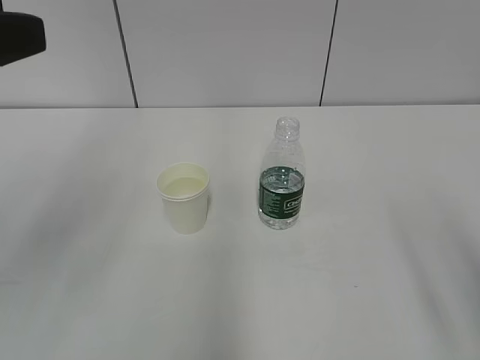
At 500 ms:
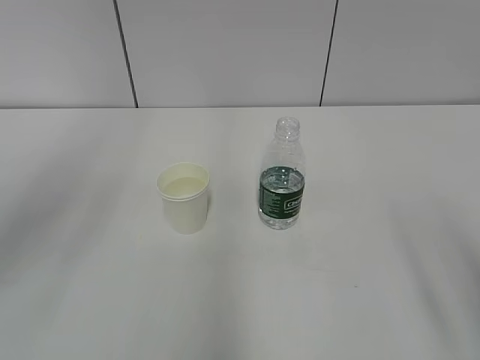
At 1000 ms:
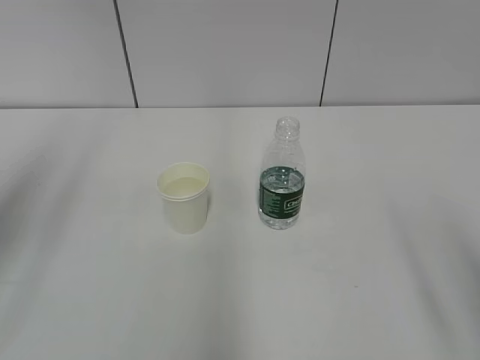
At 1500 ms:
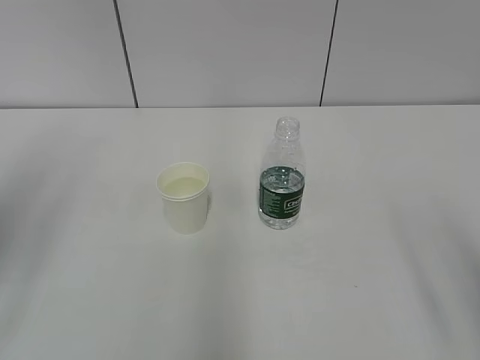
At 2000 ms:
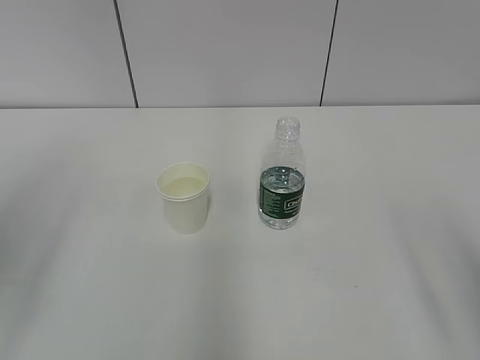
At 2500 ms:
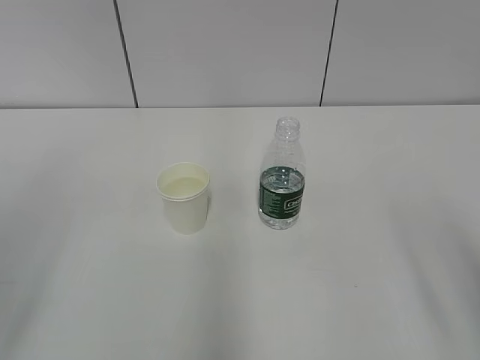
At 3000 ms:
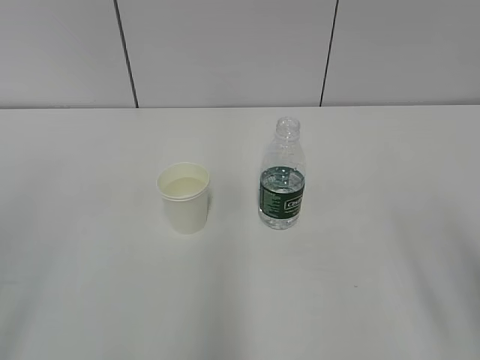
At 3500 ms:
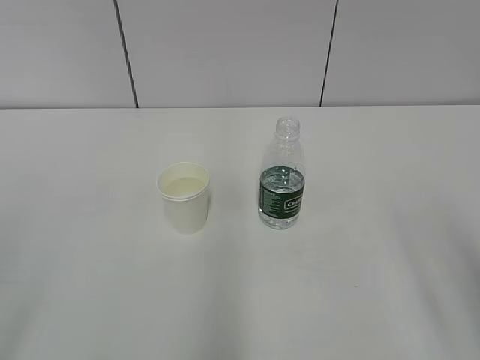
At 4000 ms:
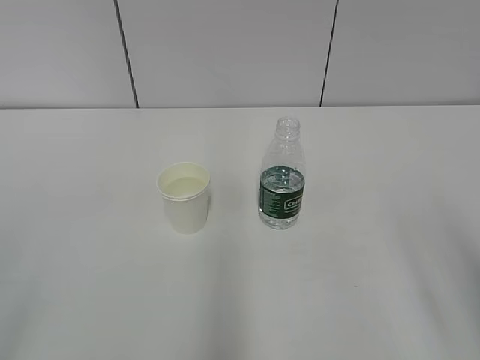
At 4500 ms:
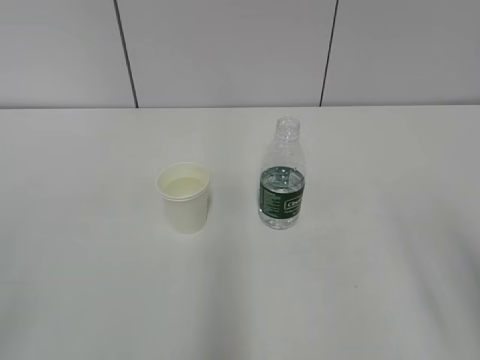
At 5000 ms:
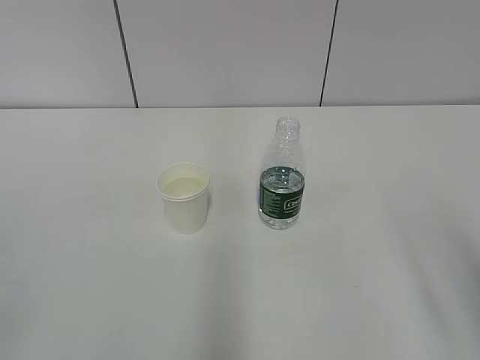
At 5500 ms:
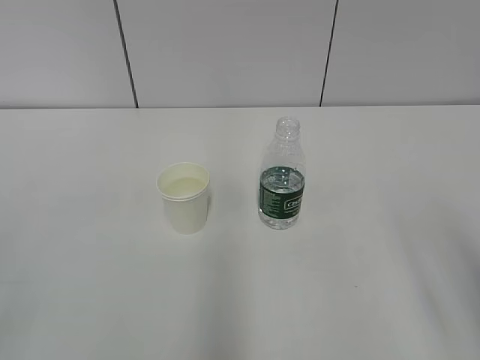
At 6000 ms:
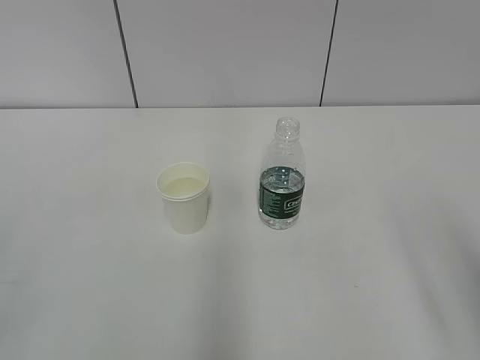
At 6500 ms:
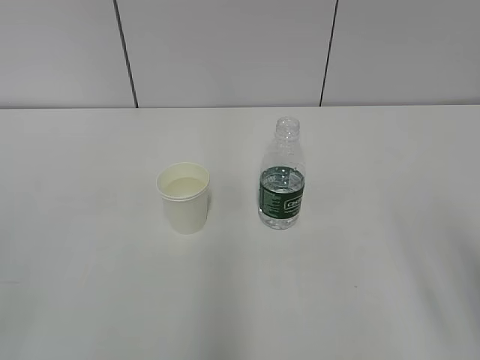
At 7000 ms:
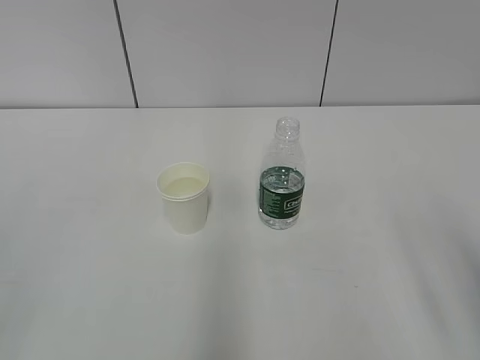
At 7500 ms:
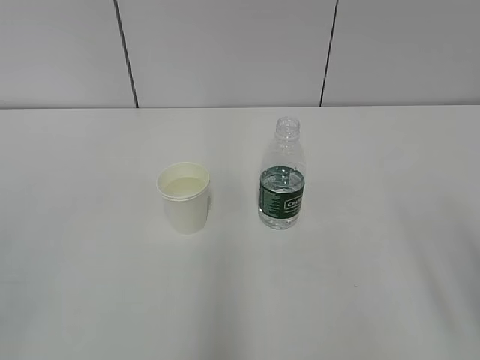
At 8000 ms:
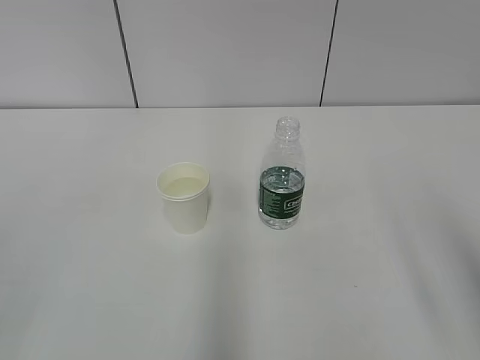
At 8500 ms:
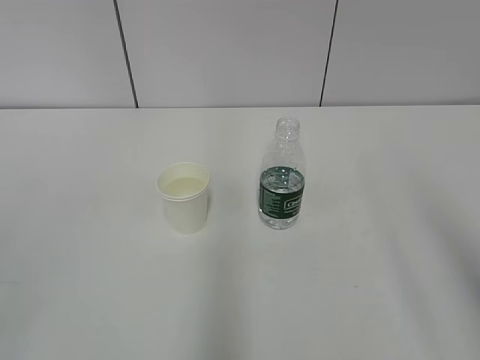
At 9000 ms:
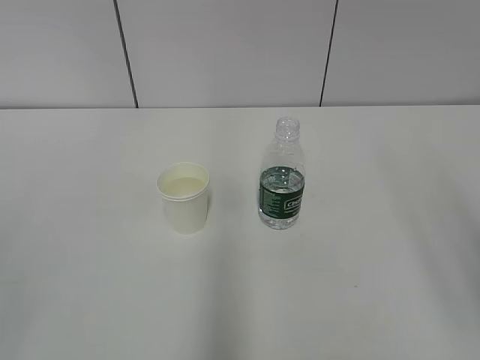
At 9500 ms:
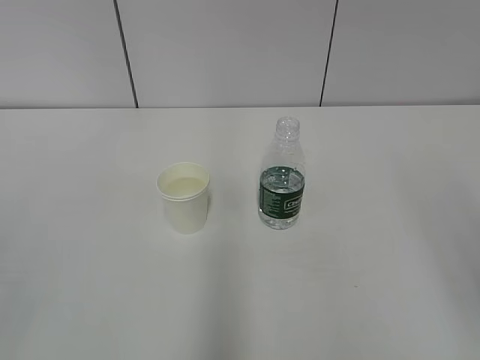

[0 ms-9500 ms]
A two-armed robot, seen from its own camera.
0 ms to 2000 ms: The left gripper shifts by about 5 cm.
5500 ms to 7500 ms: Both grippers stay about where they are.

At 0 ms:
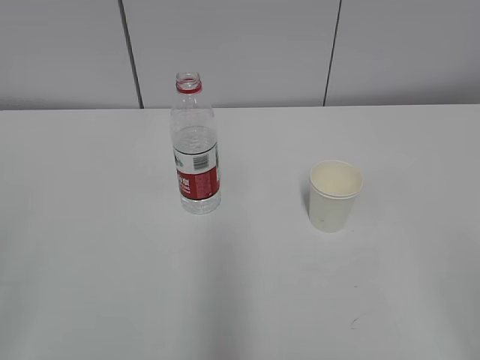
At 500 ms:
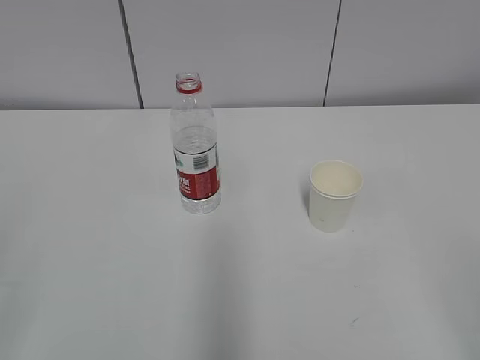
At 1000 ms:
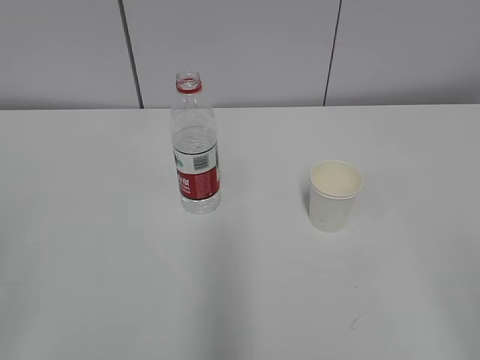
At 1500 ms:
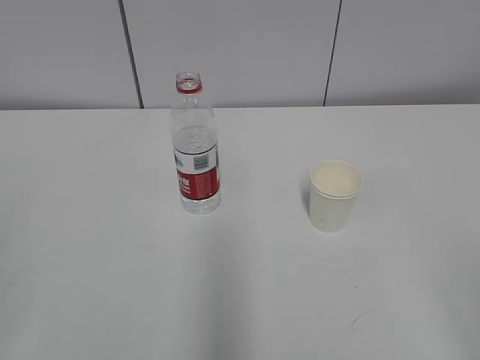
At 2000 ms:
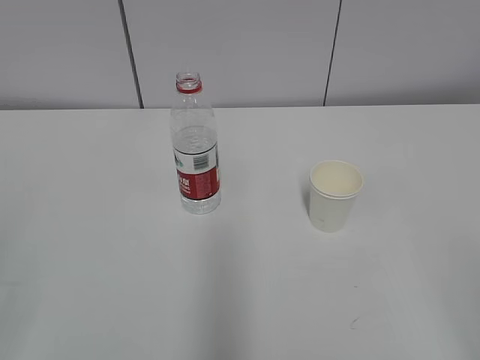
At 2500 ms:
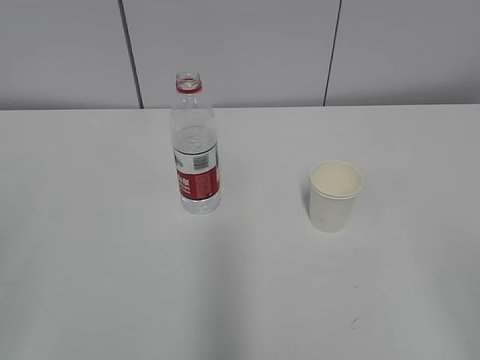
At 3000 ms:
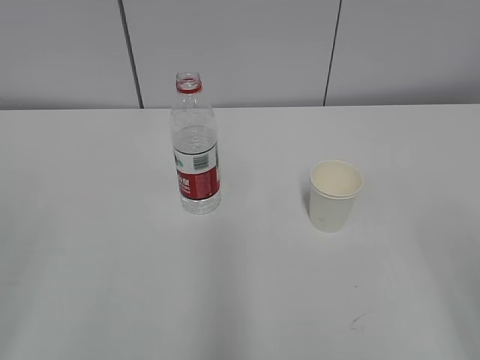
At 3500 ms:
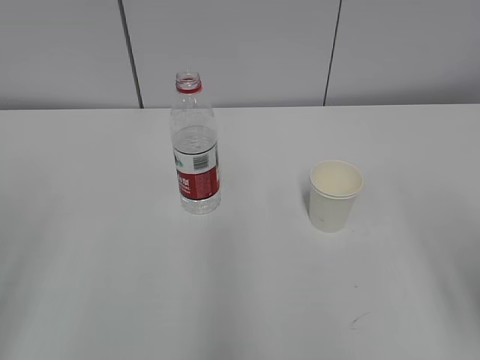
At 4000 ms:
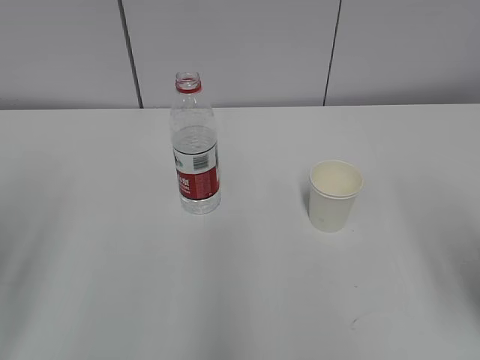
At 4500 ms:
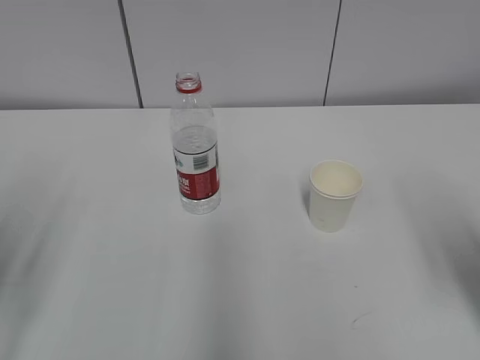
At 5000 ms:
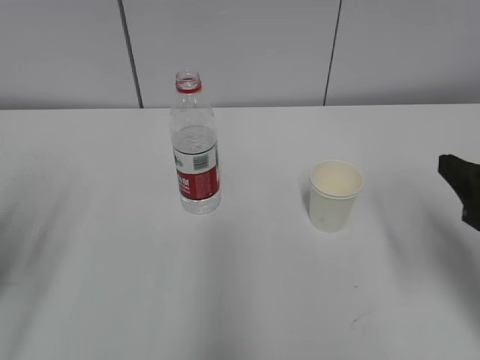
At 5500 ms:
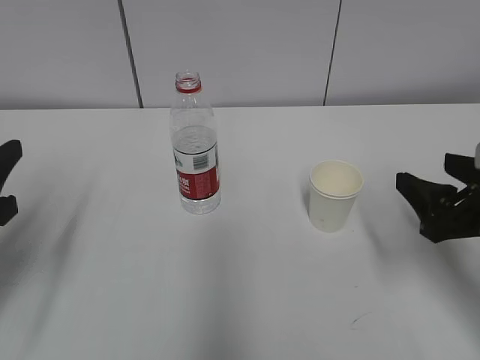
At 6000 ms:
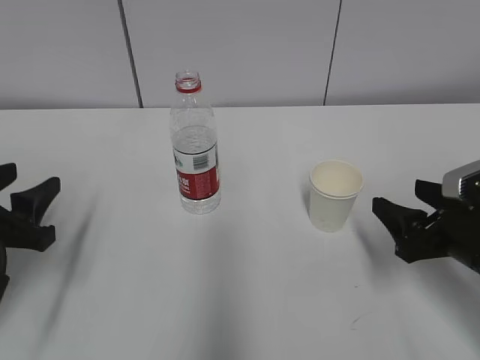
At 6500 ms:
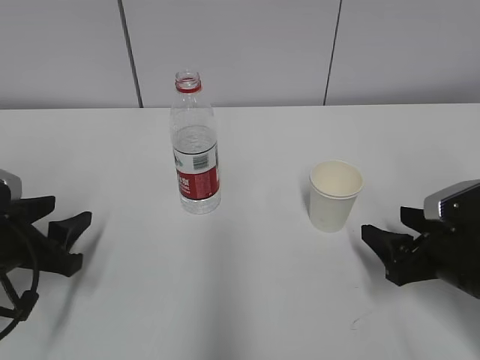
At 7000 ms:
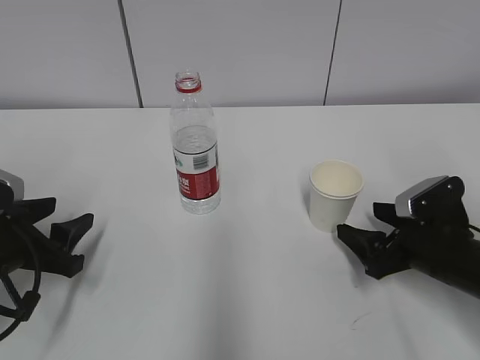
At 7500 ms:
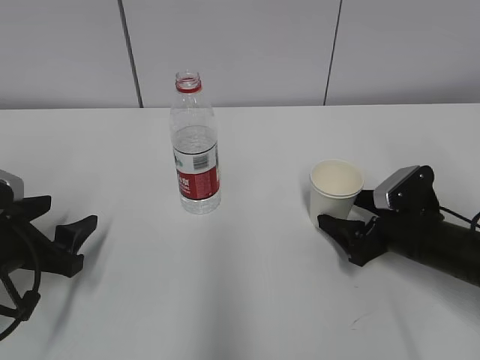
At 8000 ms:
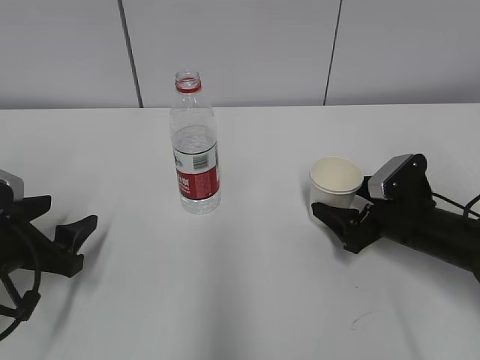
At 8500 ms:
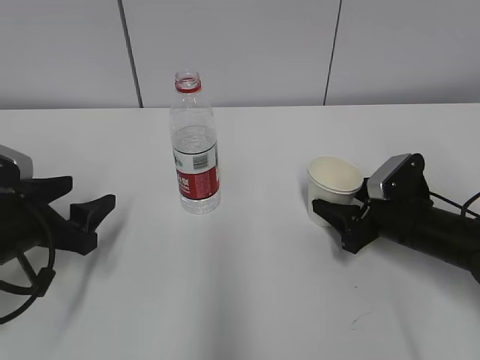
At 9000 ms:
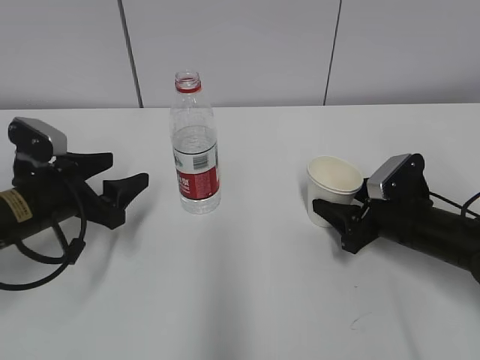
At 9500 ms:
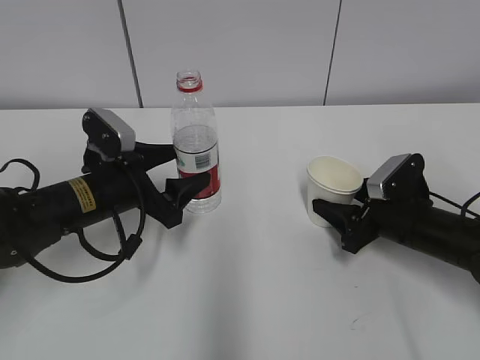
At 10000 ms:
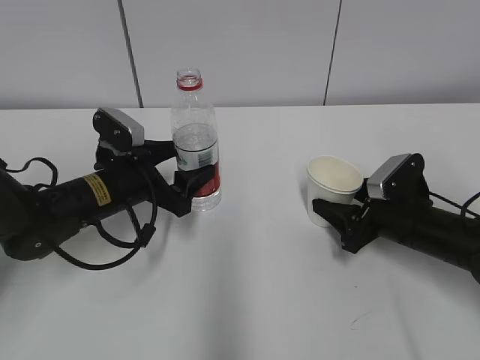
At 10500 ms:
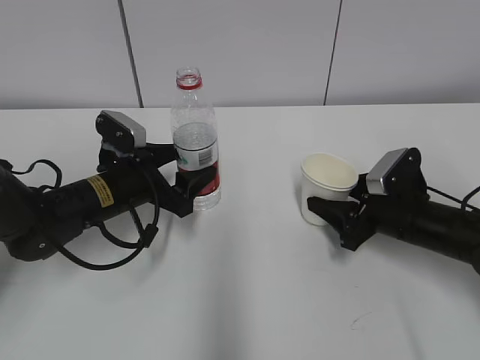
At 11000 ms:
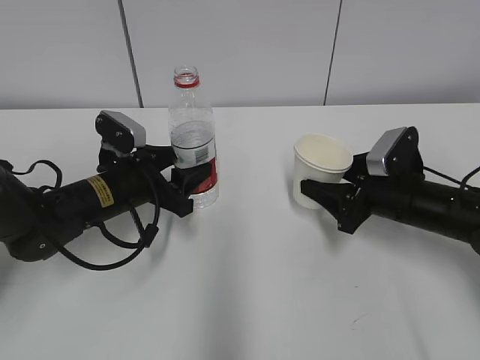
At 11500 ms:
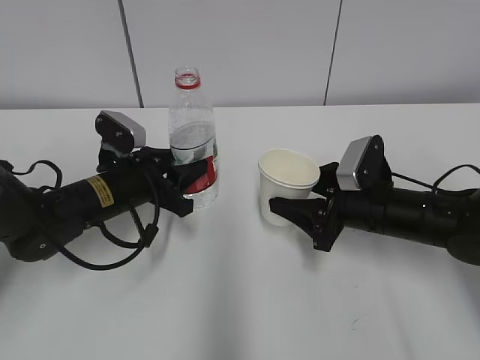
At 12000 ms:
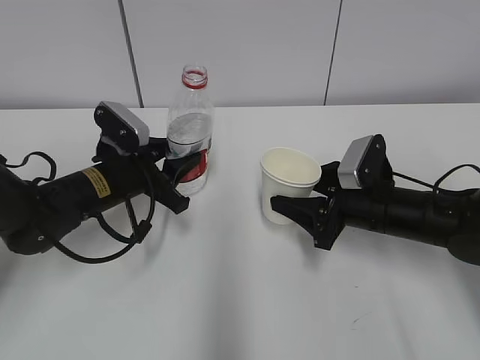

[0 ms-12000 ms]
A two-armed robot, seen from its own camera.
Step, 0 ms to 8500 ms: Grab the paper cup with the right hand.
Step, 9000 ms to 9500 ms: Grab the water bottle with the left hand.
2000 ms to 4000 ms: The right gripper heads forward, covering some 15 cm.
4000 ms to 6000 ms: Both grippers move downward and forward, some 15 cm.
6000 ms to 8000 ms: The right gripper moves forward and downward, some 10 cm, while the left gripper heads downward, covering about 5 cm, and opens up.
8000 ms to 10000 ms: The right gripper closes its fingers, while the left gripper travels forward and to the right by roughly 15 cm.
10000 ms to 12000 ms: The right gripper ends up roughly 5 cm from where it was; the left gripper closes.

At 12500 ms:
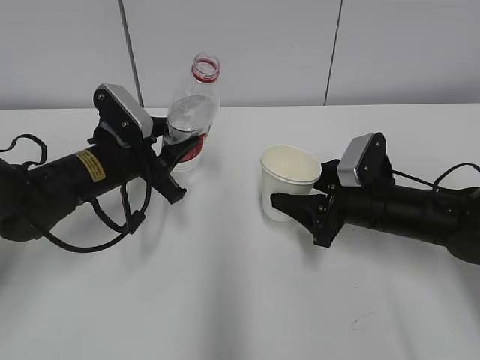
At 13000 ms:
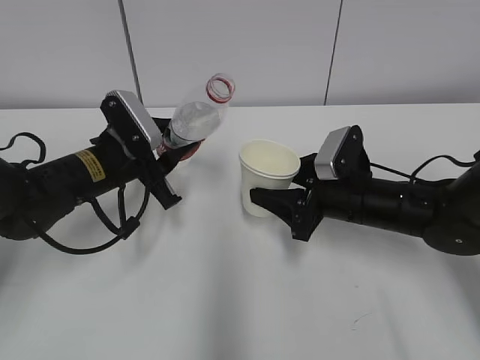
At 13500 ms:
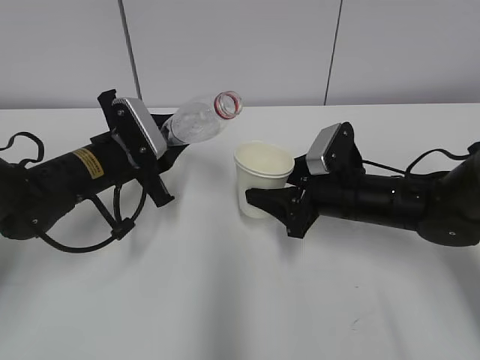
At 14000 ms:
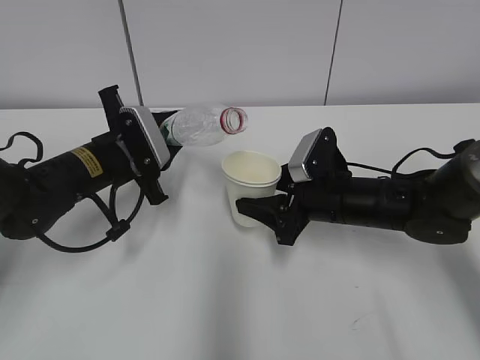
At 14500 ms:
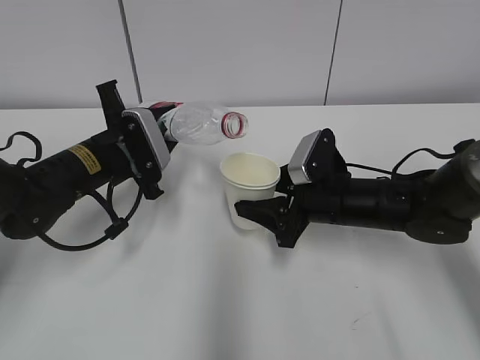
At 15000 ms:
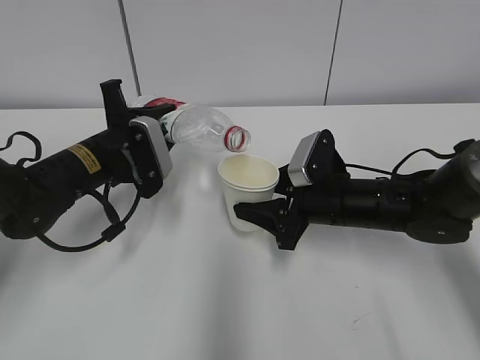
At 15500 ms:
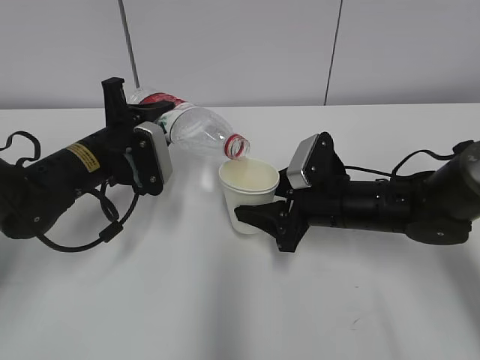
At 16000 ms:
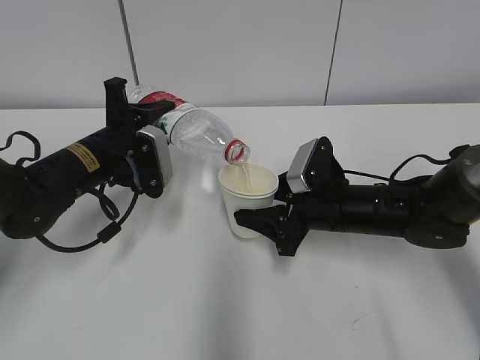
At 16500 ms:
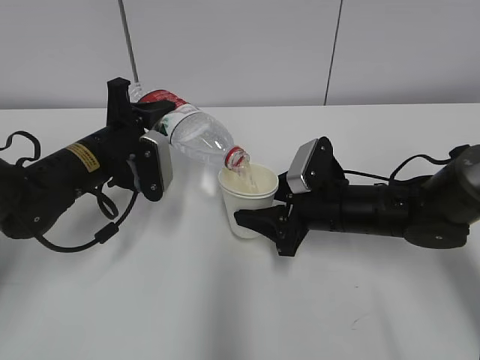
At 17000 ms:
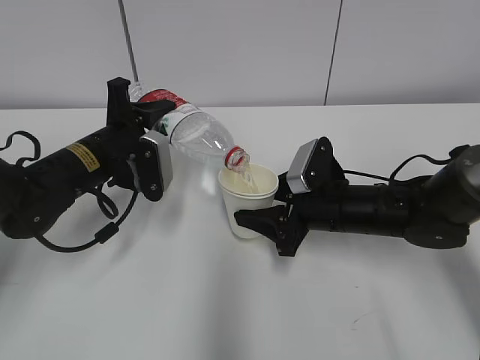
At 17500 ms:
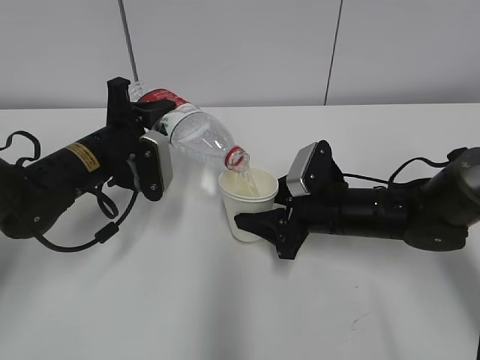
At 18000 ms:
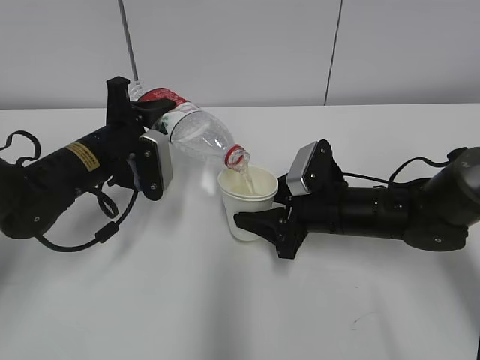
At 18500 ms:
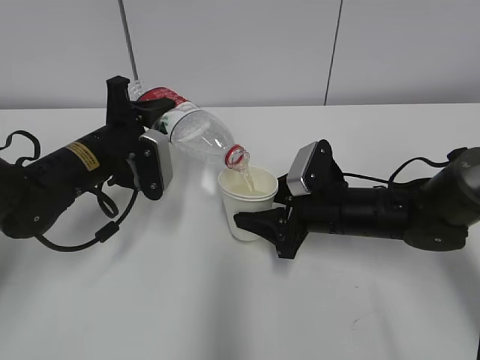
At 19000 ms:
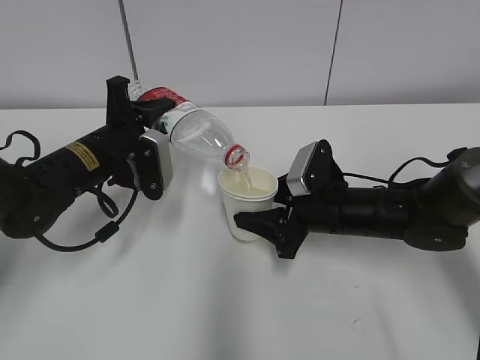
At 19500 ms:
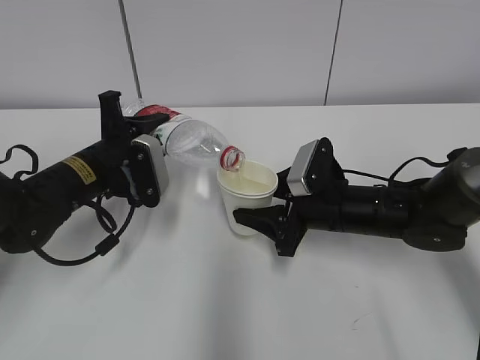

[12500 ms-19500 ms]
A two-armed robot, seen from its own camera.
Step, 13500 ms to 16000 ms: Fill water with the right hand.
Step, 13500 ms to 16000 ms: Pour water with the left hand.
14500 ms to 16000 ms: The grippers make only small movements.
16000 ms to 17500 ms: Both grippers stay put.
17500 ms to 19500 ms: The grippers stay close to where they were, moving slightly.
